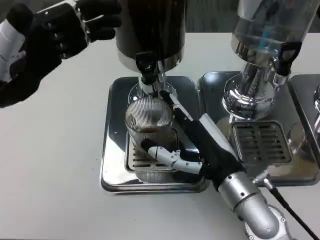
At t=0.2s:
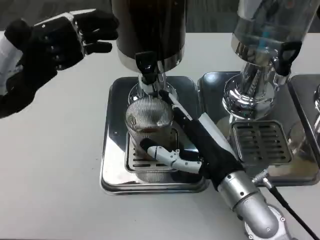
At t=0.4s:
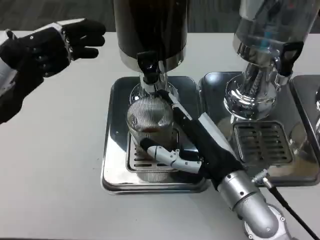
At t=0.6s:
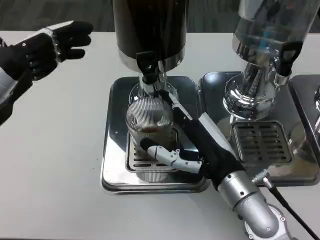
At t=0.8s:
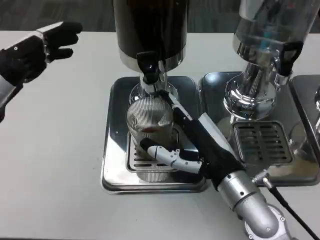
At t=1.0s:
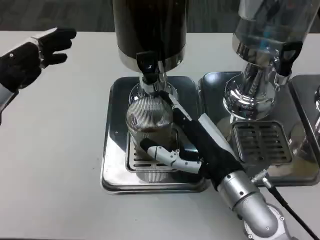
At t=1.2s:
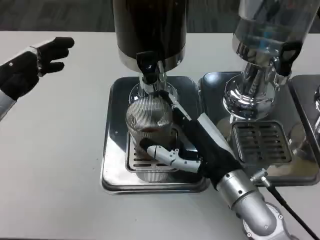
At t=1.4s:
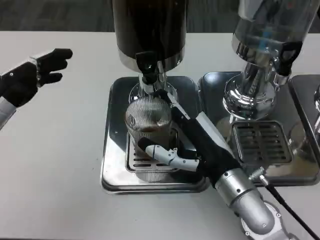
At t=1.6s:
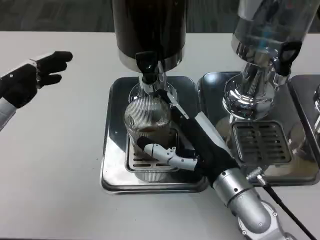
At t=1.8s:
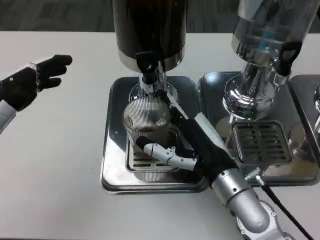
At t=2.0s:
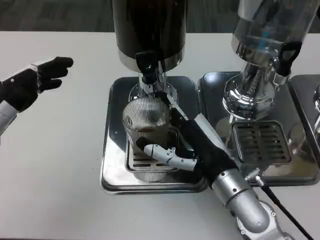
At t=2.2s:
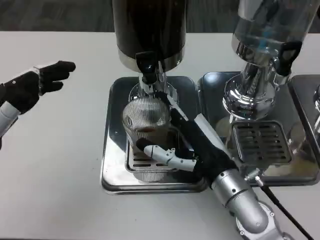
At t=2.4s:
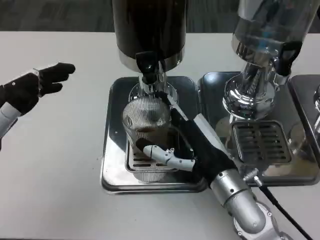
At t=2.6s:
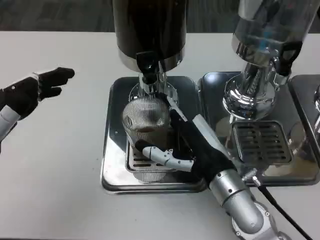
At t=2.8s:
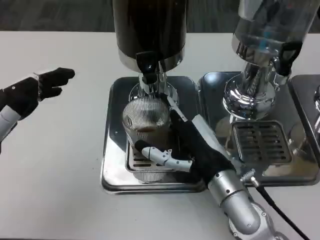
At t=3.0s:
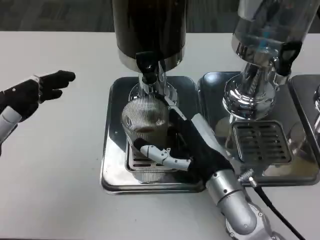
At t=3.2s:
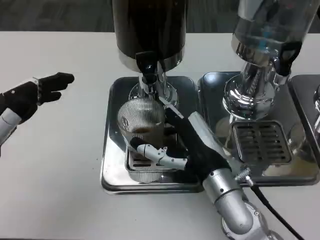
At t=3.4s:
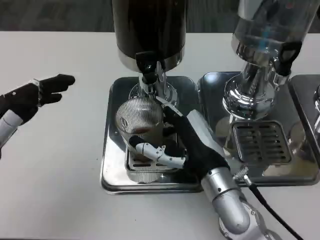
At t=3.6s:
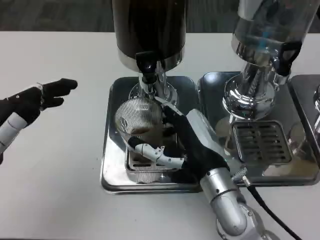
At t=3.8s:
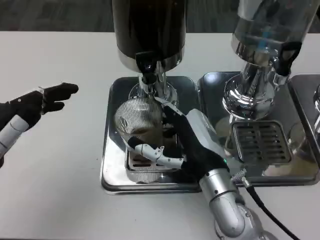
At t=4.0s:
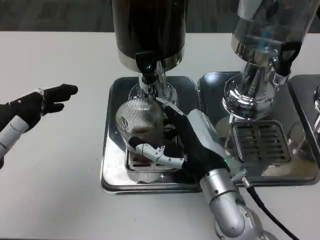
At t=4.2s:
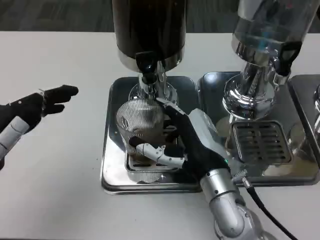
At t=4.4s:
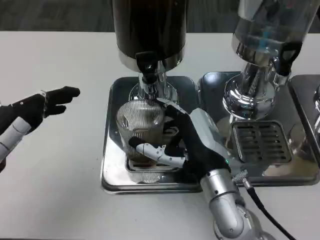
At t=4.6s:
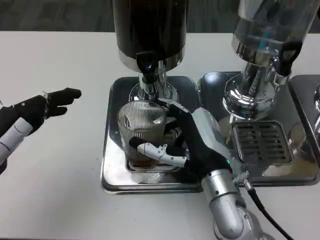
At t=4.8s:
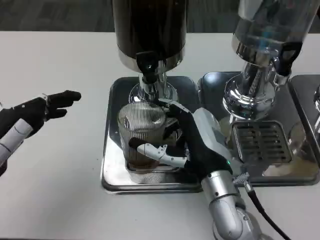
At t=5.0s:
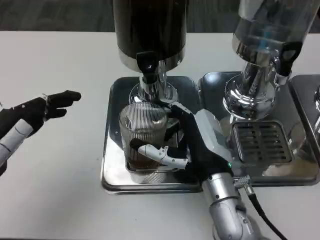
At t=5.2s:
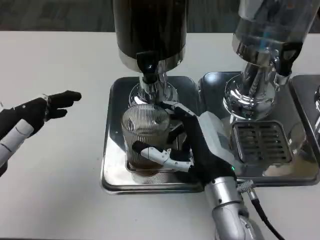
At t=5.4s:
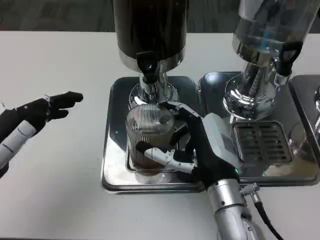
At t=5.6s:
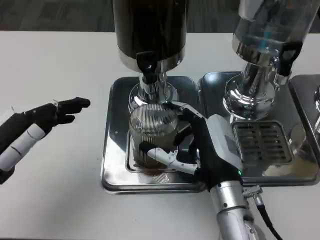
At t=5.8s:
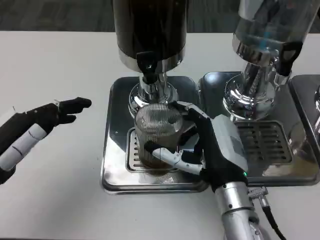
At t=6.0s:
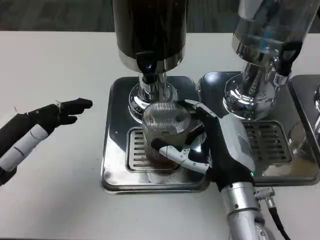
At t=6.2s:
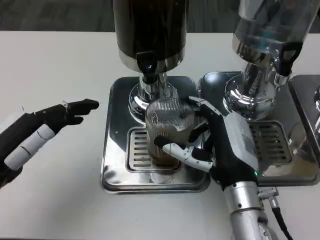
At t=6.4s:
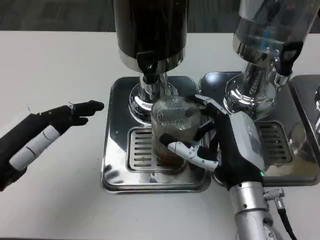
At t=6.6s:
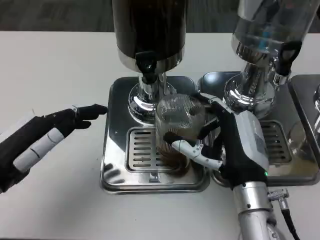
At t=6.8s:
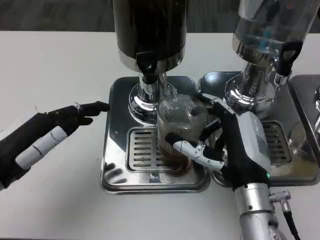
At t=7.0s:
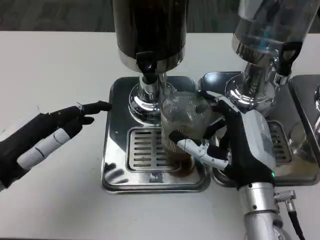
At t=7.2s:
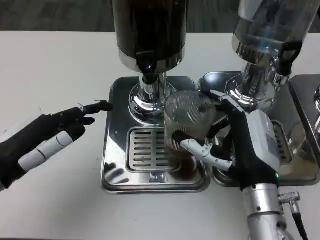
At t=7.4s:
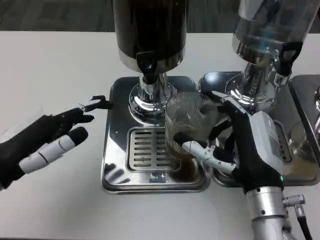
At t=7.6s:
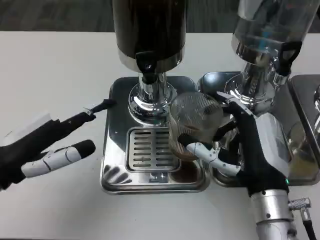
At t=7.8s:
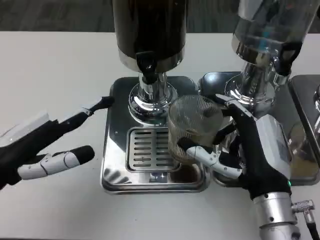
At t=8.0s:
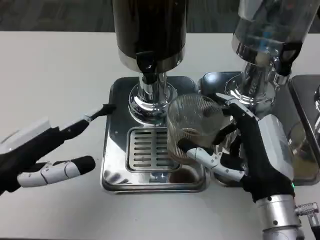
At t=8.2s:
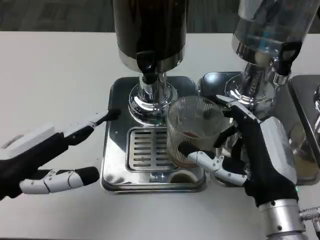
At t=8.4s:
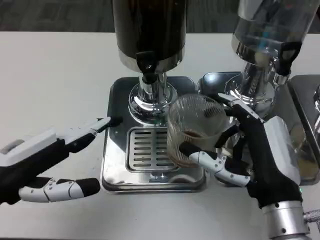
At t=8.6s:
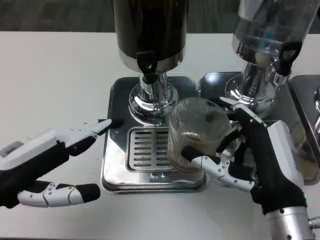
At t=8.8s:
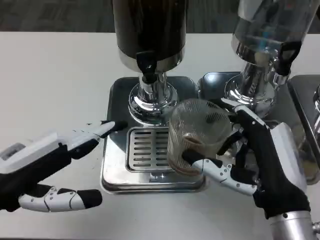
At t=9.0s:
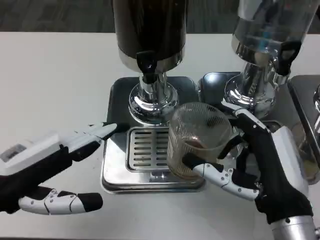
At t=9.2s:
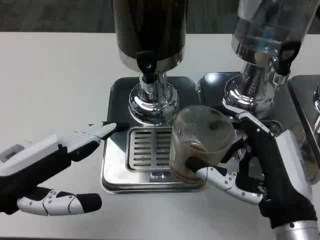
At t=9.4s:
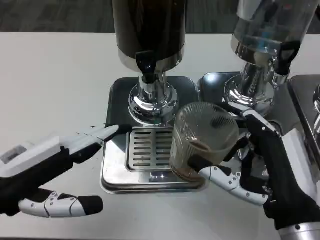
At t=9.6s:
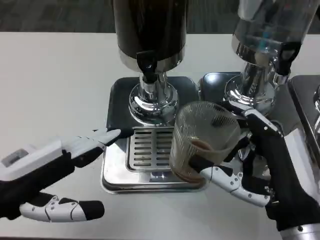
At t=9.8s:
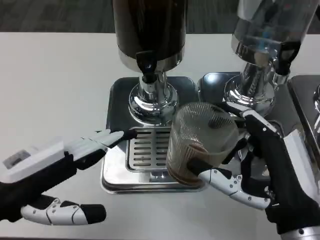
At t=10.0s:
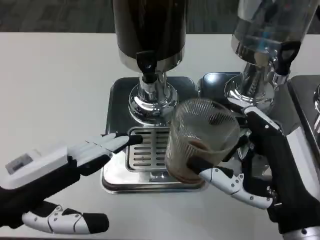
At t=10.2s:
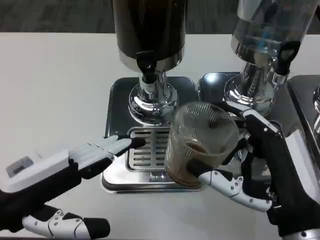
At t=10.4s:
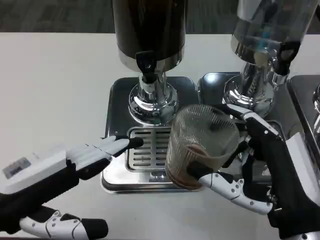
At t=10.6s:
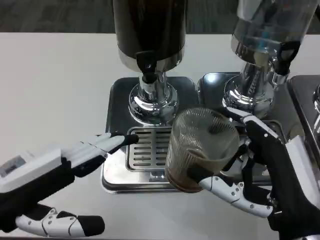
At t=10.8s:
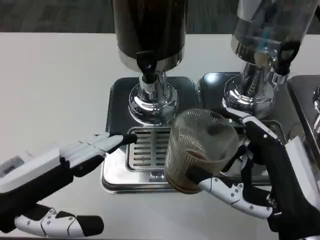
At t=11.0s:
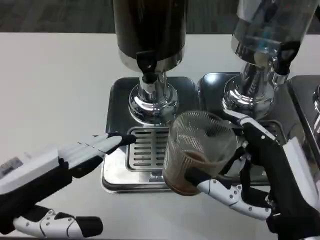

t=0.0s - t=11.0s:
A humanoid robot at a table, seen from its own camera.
Task of the whole recording: Grasp the cup under the faucet to collect the drink, then remove the cup.
t=0.0s - t=1.6s: The left hand heads backward, covering some 5 cm.
t=1.6s - t=4.8s: There are only small adjustments of the hands.
t=7.8s - t=9.4s: The right hand goes about 5 cm backward.
t=9.4s - t=11.0s: The hands move only a little.

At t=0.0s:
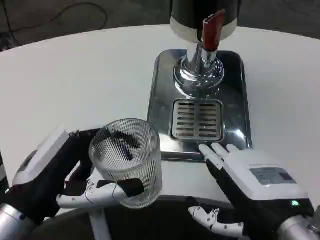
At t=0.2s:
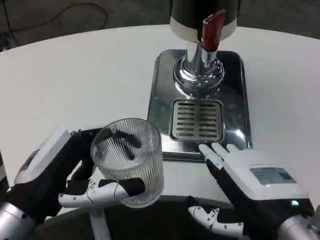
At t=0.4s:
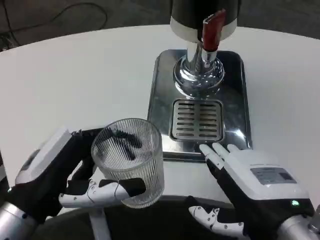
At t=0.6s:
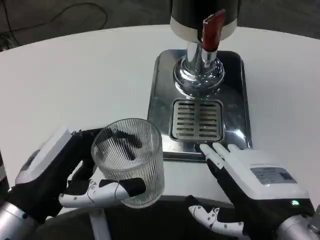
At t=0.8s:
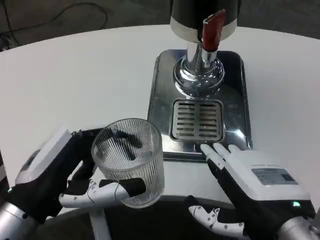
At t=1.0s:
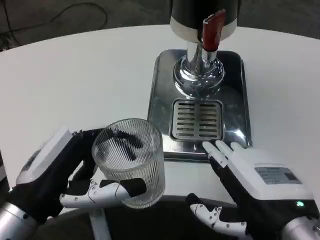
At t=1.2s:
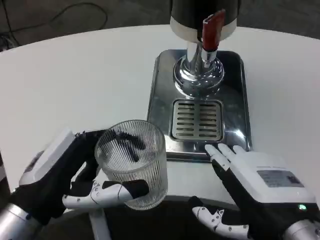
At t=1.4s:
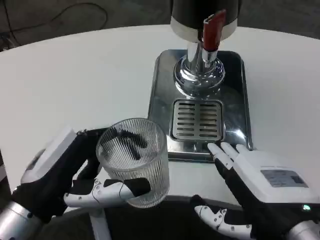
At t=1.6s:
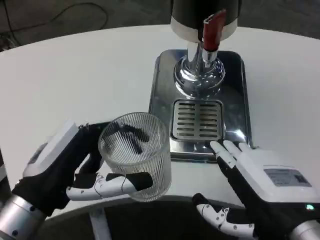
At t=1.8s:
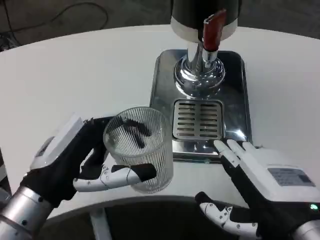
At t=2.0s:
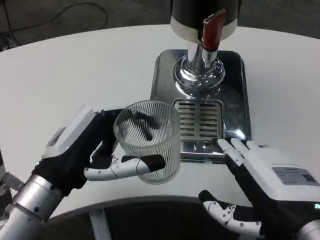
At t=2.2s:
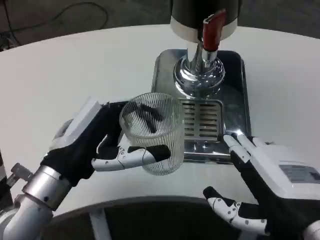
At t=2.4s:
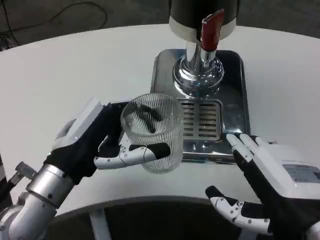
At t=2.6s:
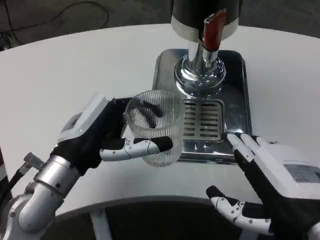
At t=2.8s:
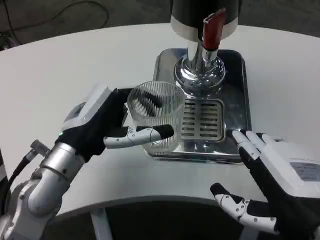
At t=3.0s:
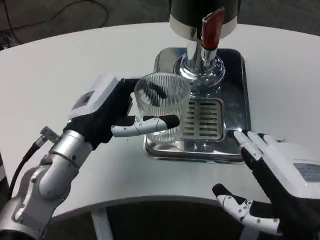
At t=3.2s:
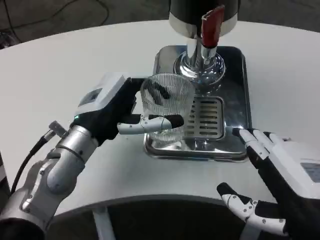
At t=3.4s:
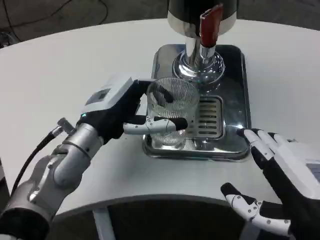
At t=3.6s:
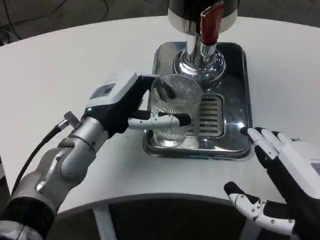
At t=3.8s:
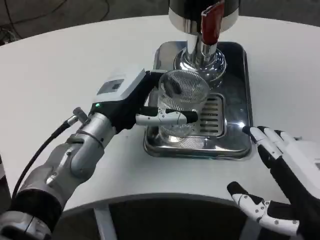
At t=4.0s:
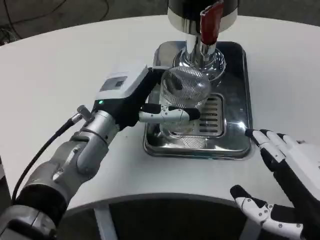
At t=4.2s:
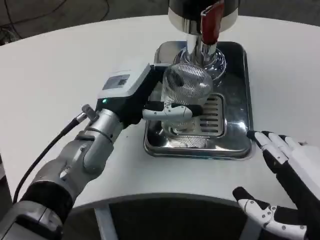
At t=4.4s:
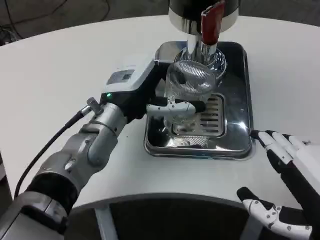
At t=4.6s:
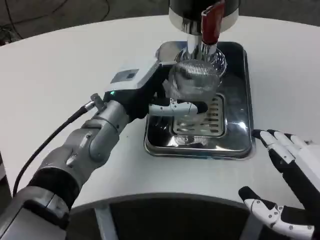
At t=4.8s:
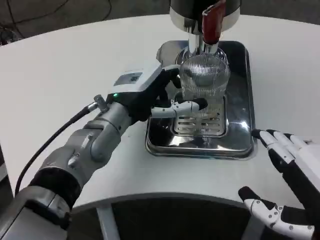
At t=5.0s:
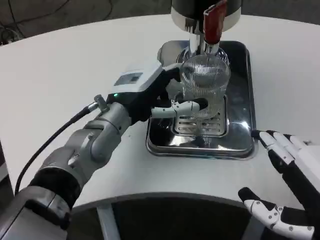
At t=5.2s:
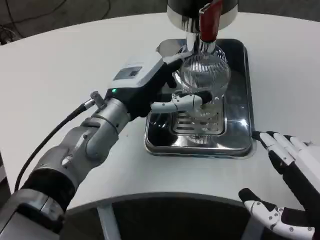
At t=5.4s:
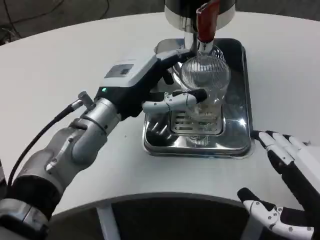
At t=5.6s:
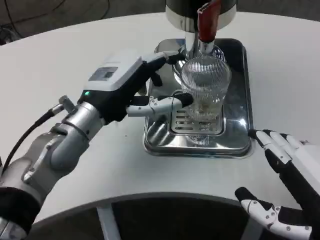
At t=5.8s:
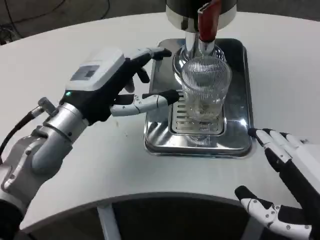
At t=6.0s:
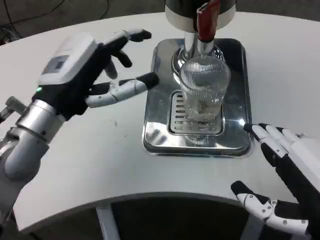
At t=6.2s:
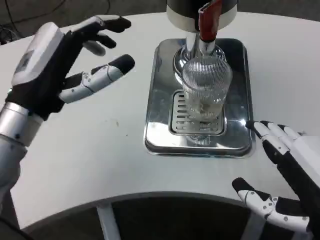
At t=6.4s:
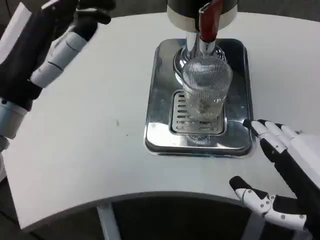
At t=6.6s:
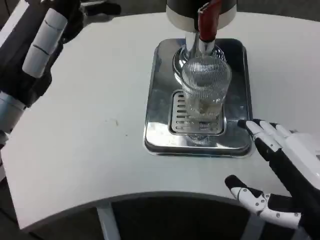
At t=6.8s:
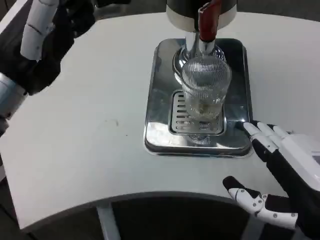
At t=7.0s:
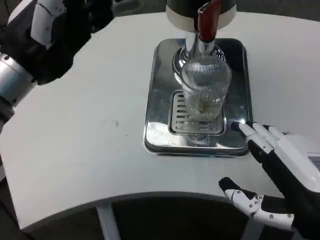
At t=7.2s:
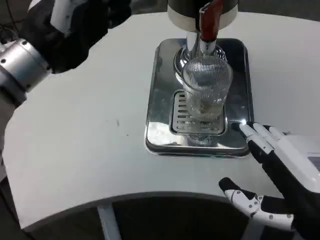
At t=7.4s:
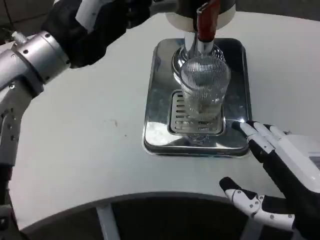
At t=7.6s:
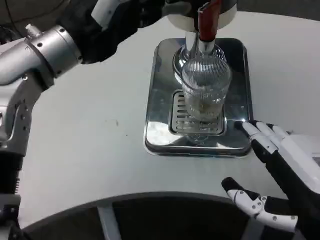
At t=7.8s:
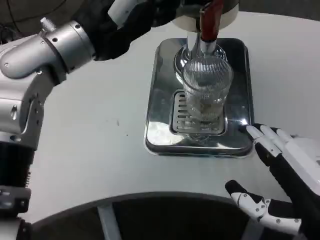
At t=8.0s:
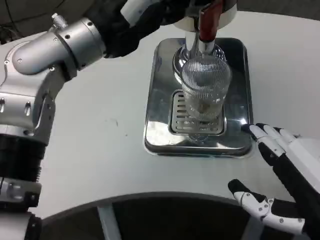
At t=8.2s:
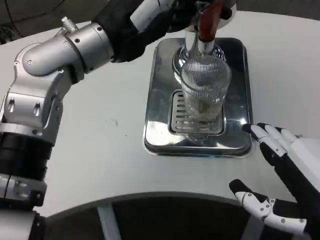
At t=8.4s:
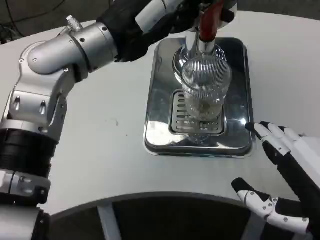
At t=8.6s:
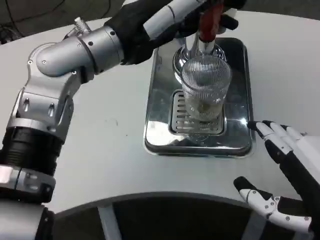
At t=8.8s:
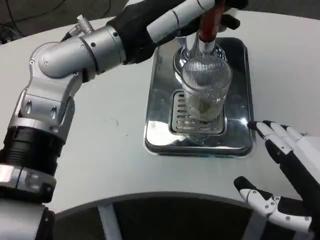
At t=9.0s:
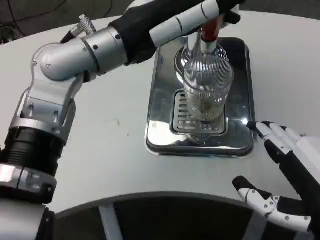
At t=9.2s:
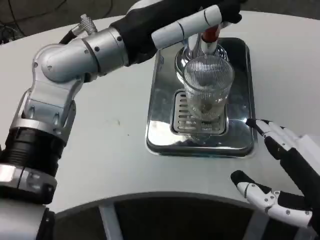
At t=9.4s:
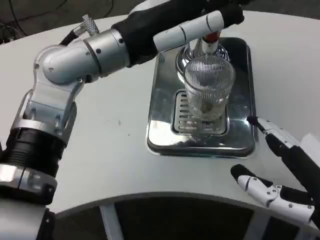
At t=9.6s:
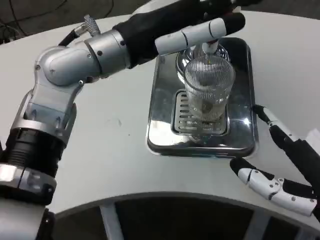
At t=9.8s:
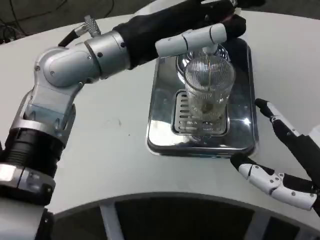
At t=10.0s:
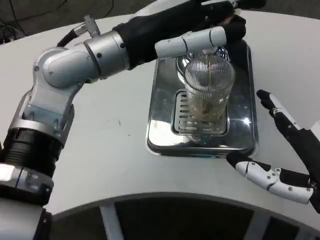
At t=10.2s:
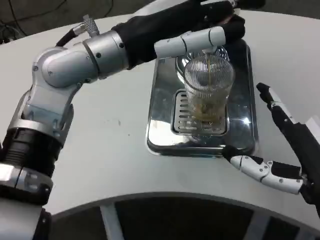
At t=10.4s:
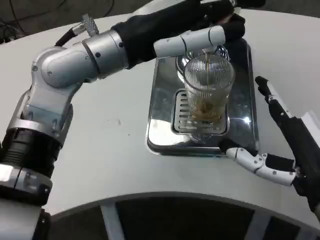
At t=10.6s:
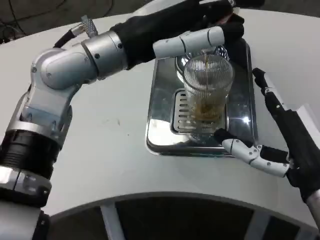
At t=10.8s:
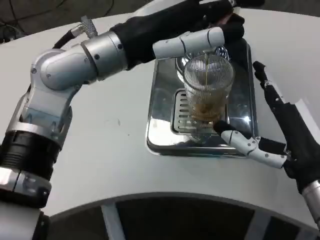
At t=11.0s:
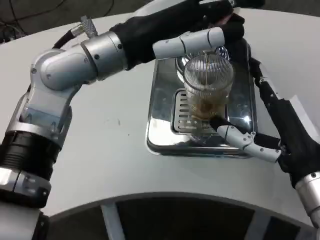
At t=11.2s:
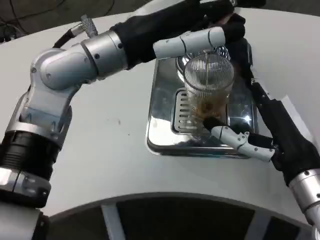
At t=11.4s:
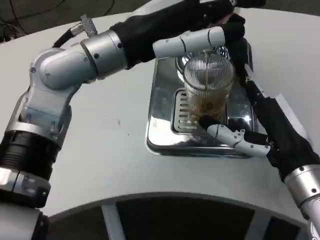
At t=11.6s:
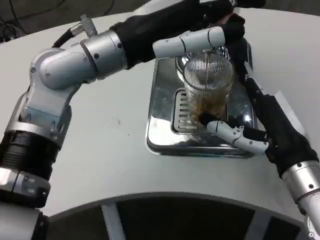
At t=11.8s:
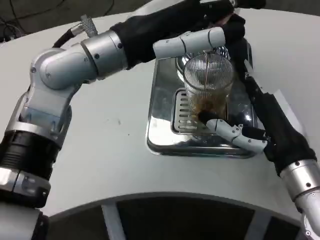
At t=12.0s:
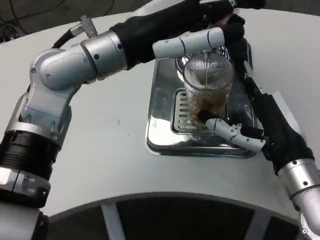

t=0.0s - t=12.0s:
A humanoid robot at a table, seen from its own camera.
Task of the whole recording: Grasp the cup under the faucet to collect the drink, then remove the cup.
t=0.0s - t=1.6s: Neither hand changes place.
t=1.6s - t=3.0s: The left hand moves forward, about 10 cm.
t=3.0s - t=4.4s: The left hand moves about 5 cm.
t=4.4s - t=6.0s: The left hand moves to the left and backward, about 10 cm.
t=6.0s - t=7.6s: The left hand is displaced upward by some 10 cm.
t=9.0s - t=10.4s: The right hand goes roughly 5 cm forward.
t=10.4s - t=12.0s: The right hand is displaced forward by some 5 cm.
